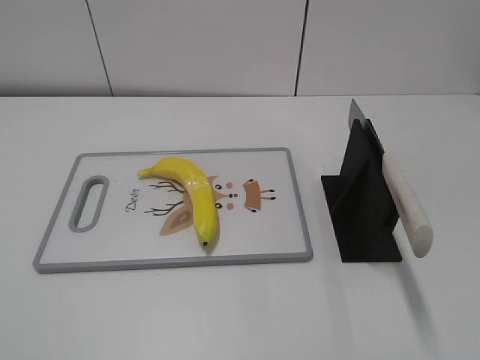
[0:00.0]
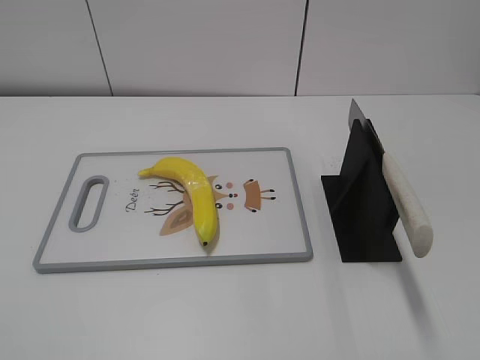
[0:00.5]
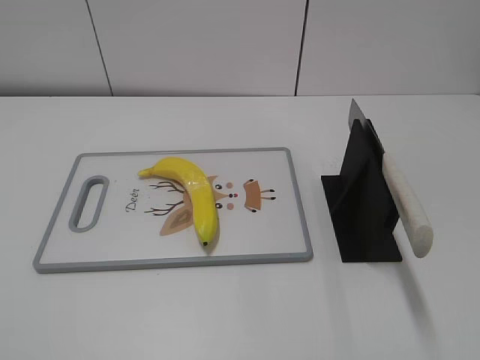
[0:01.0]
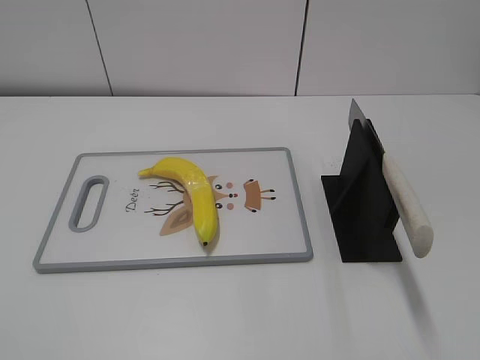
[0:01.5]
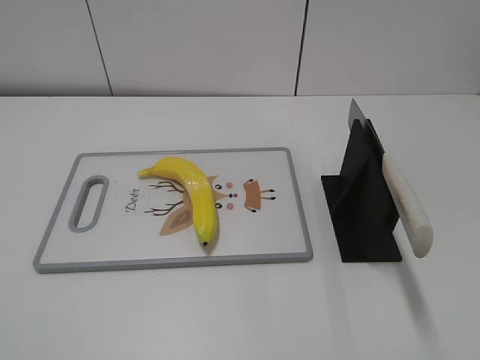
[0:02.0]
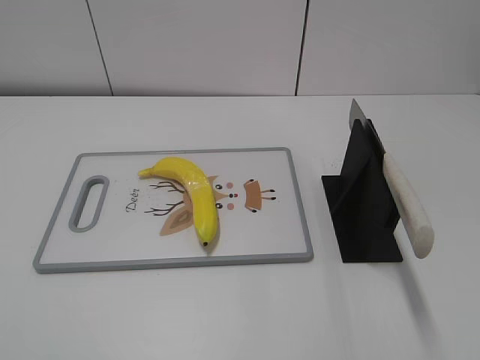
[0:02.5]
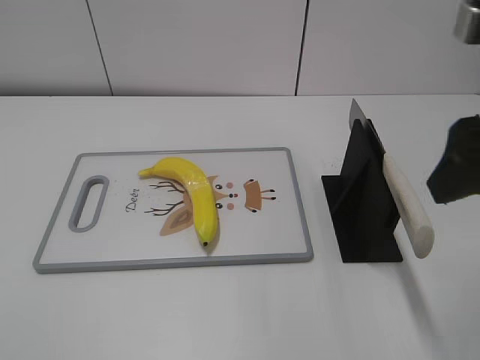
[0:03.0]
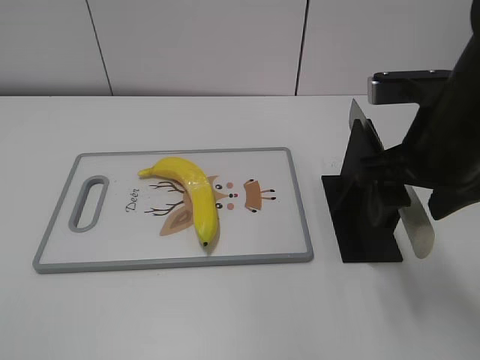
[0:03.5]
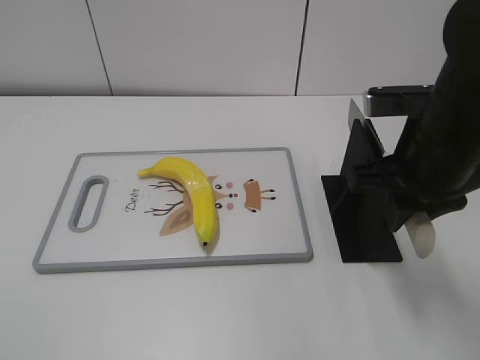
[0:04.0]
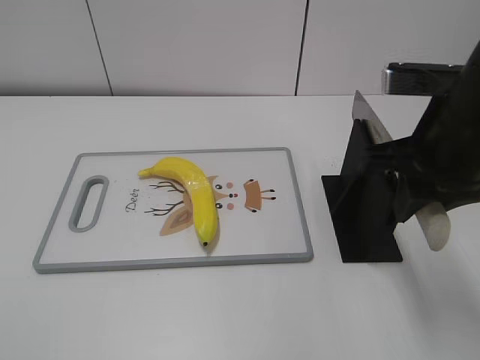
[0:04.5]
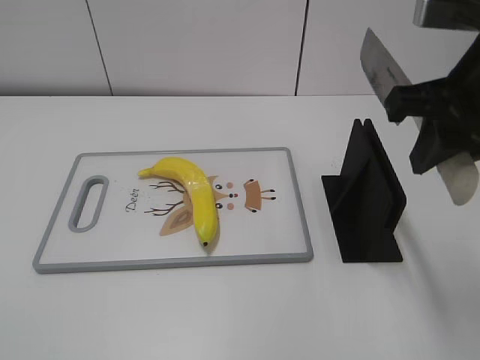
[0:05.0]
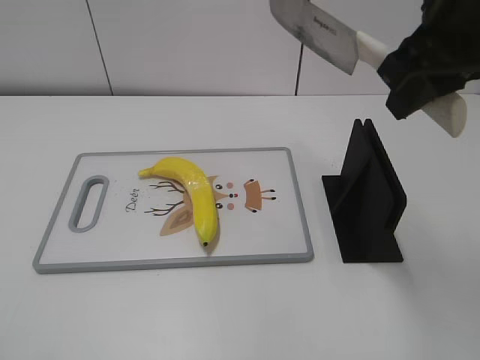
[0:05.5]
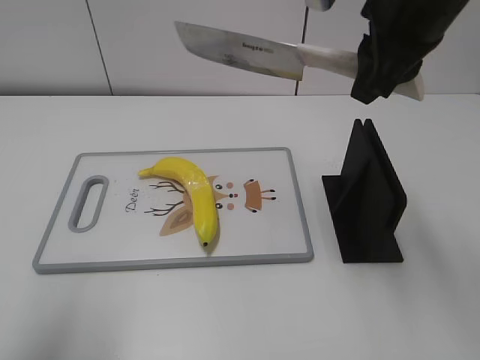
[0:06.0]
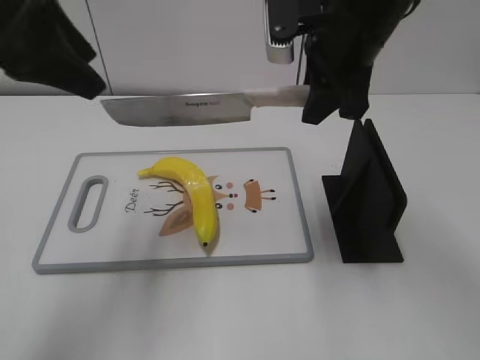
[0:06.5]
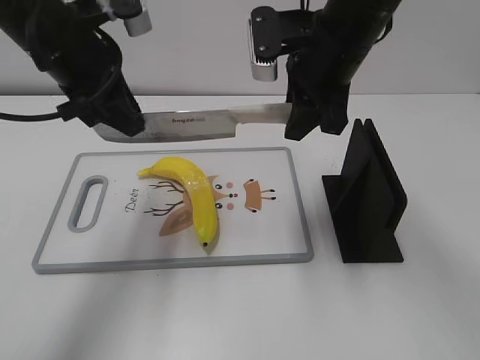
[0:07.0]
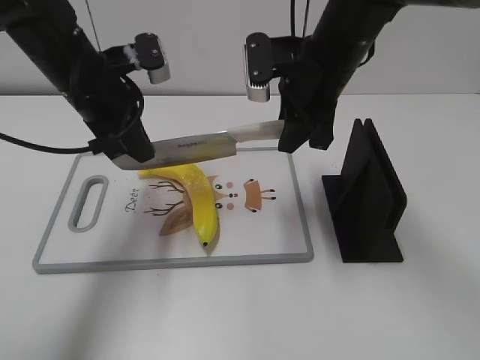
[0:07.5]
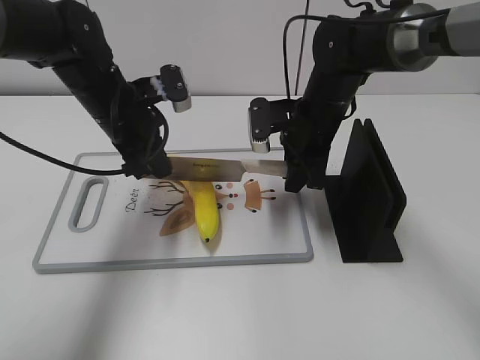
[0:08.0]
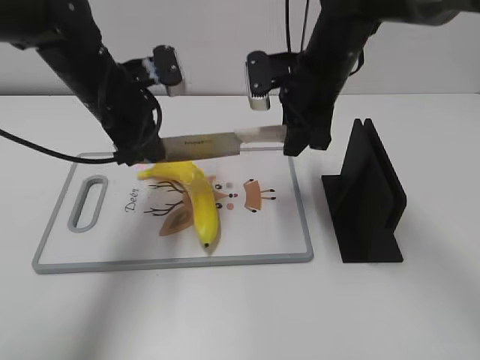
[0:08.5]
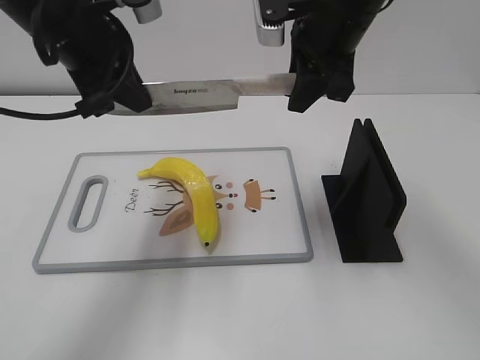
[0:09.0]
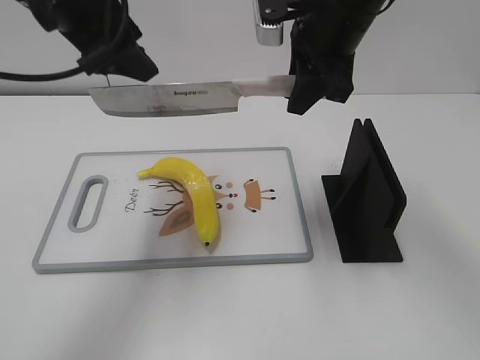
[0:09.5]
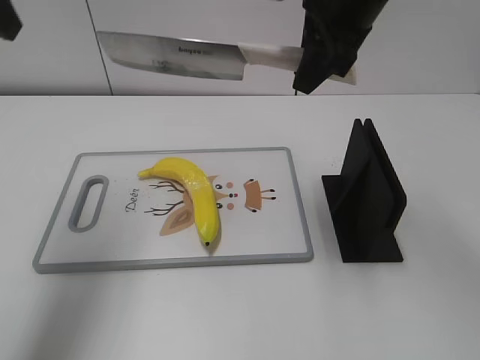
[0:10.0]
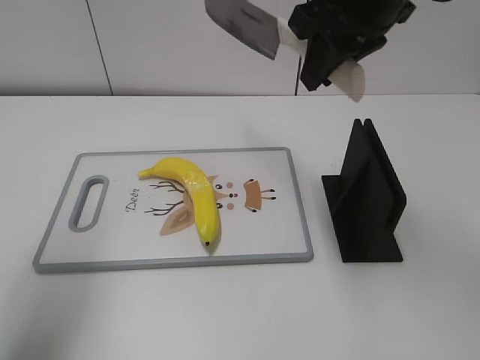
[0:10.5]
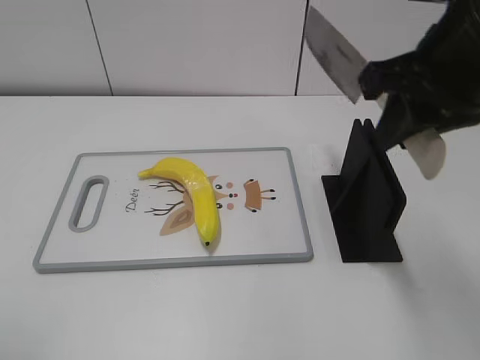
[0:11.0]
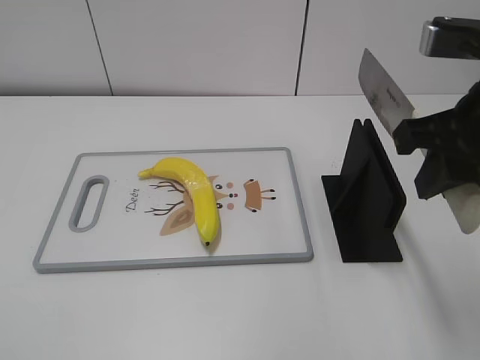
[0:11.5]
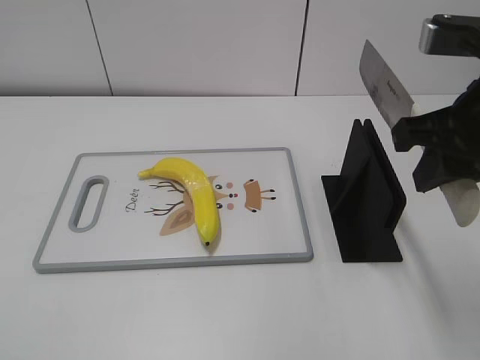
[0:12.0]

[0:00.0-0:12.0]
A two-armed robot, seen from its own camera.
Task of the whole recording: cut plastic banana.
Step, 0:00.0 to 0:05.0: Grab the knife handle with your right hand.
Step, 0:05.5 to 0:08.5: Hold the blade with your left hand.
Step, 0:09.0 to 0:10.0: Cut the banana with your right hand.
Step, 0:10.5 to 0:11.0: Secure the blade with your left hand.
0:02.0 to 0:04.0: The right gripper heads forward and to the left, covering about 25 cm, and closes.
0:04.0 to 0:06.0: The right gripper moves upward and forward, roughly 10 cm. Meanwhile the left gripper is displaced forward and upward by some 20 cm.
0:06.0 to 0:08.0: The right gripper travels downward and forward by some 20 cm; the left gripper is displaced forward, downward and to the right by some 30 cm, and closes.
0:08.0 to 0:10.0: The left gripper is displaced upward and to the left by about 25 cm, and opens; the right gripper heads upward, covering approximately 20 cm.
0:10.0 to 0:12.0: The right gripper is displaced backward and to the right by approximately 15 cm. The left gripper moves backward, roughly 30 cm.

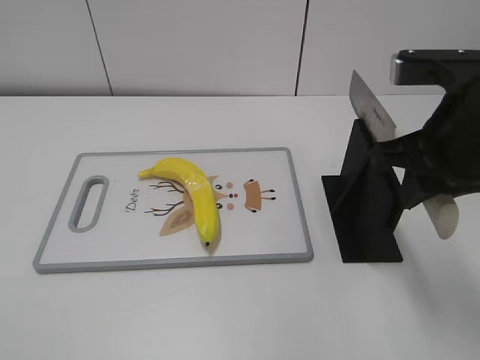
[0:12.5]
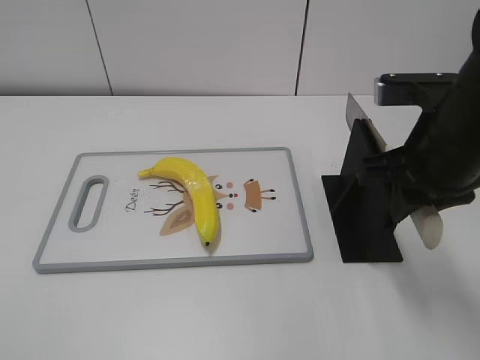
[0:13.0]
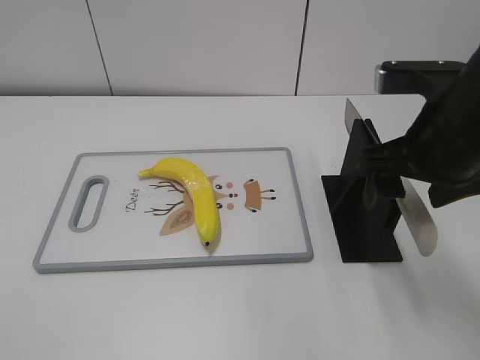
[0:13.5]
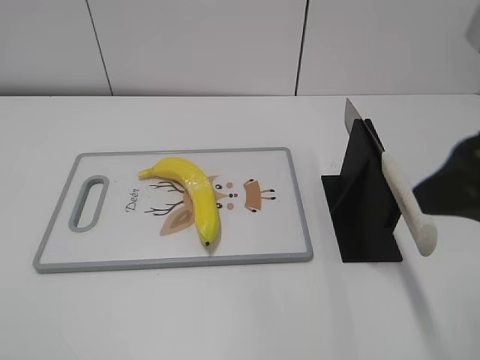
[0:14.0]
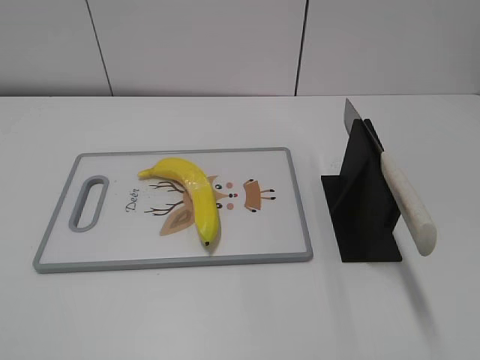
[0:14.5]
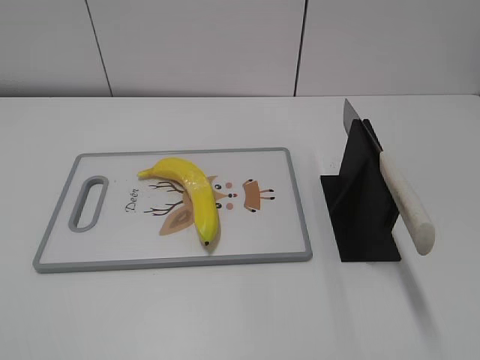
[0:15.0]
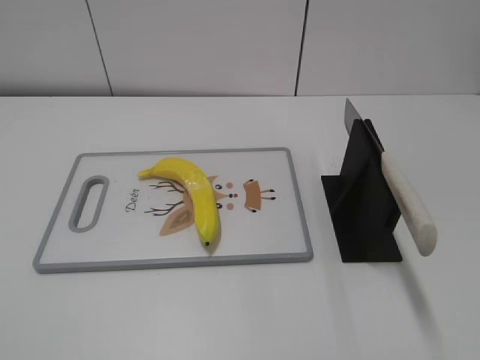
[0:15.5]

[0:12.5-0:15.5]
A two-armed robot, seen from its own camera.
Task of the whole recording: cut plastic banana.
Step, 0:12.5 to 0:15.5: Place the knife on the storage rack with your right hand.
0:12.5 to 0:14.0: The right gripper travels backward and upward by approximately 10 cm, and opens.
0:14.0 to 0:15.5: The right gripper heads backward and to the right, covering approximately 20 cm.
